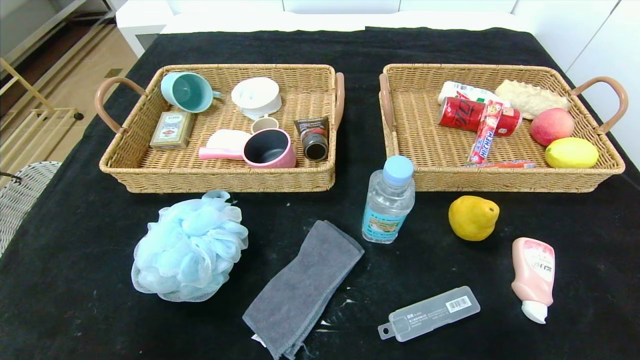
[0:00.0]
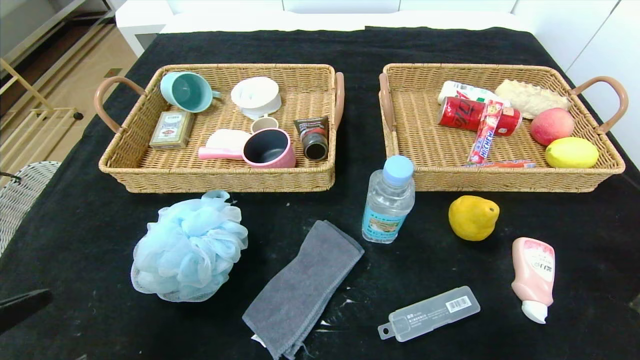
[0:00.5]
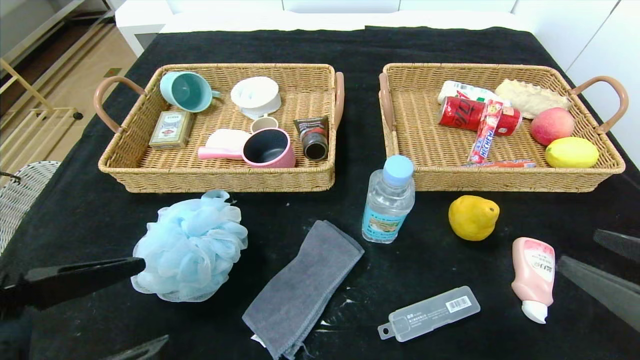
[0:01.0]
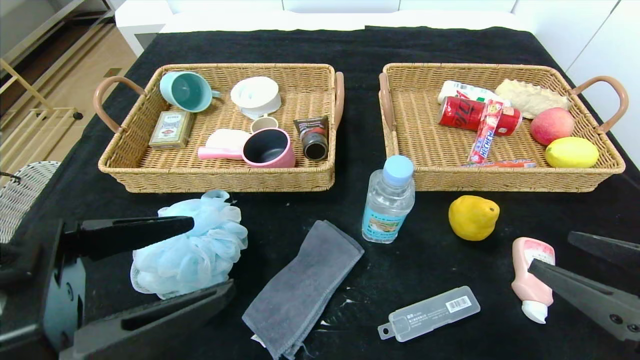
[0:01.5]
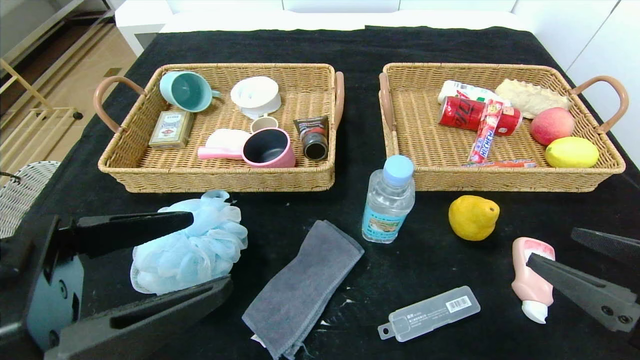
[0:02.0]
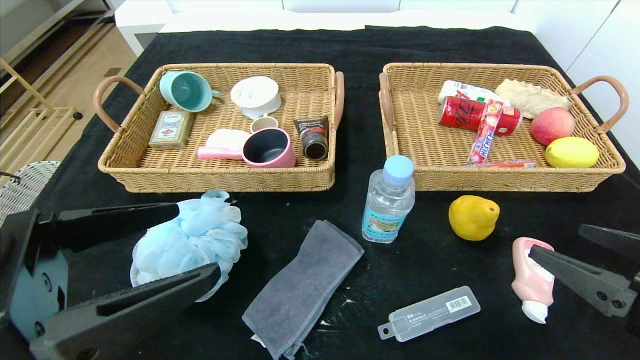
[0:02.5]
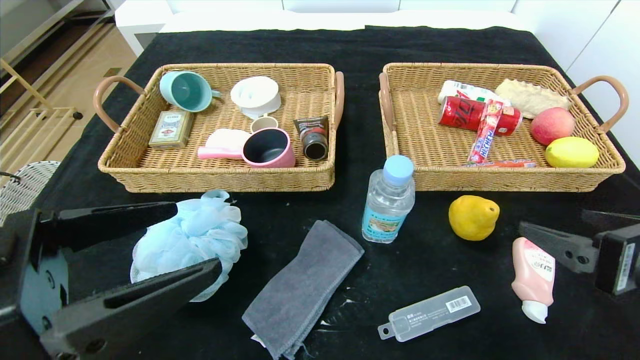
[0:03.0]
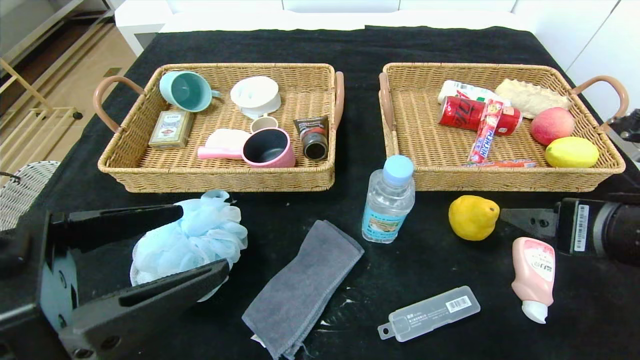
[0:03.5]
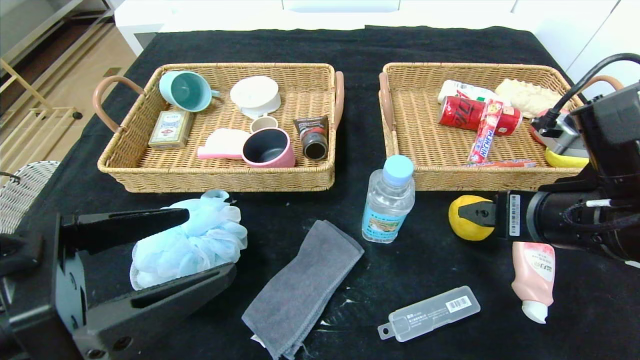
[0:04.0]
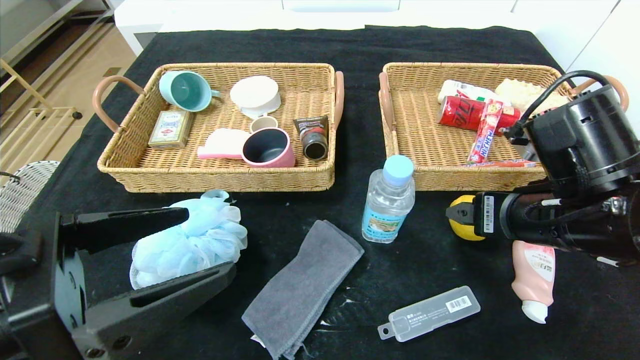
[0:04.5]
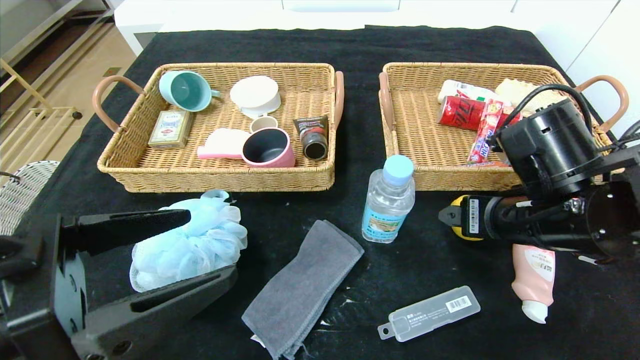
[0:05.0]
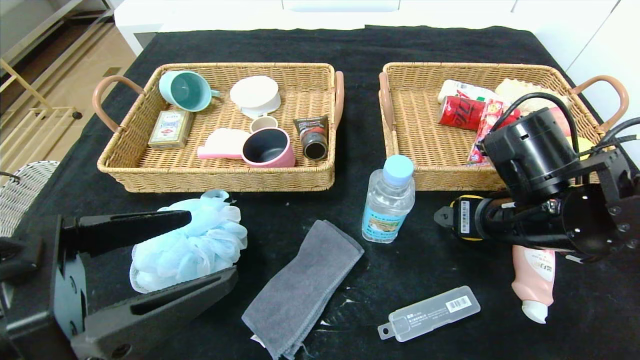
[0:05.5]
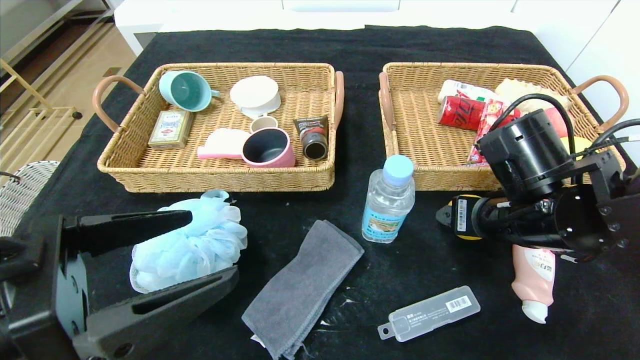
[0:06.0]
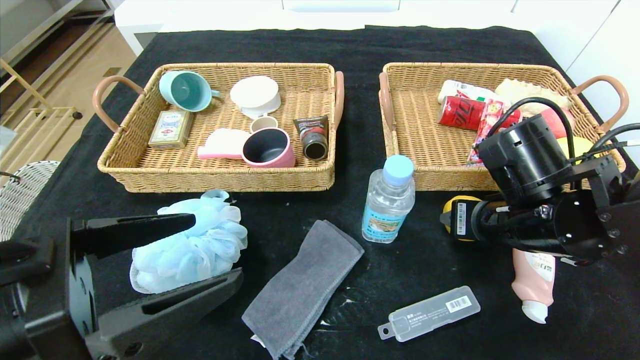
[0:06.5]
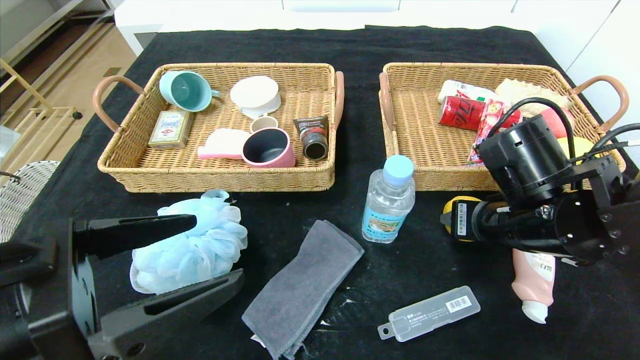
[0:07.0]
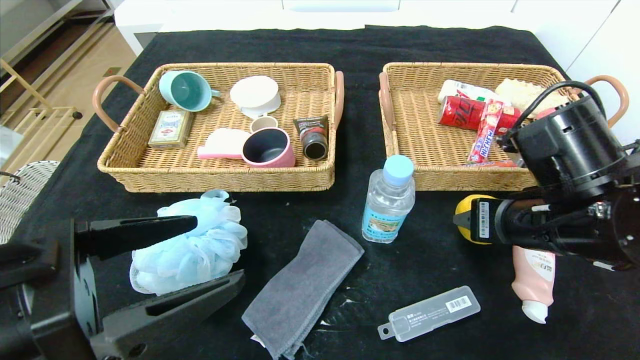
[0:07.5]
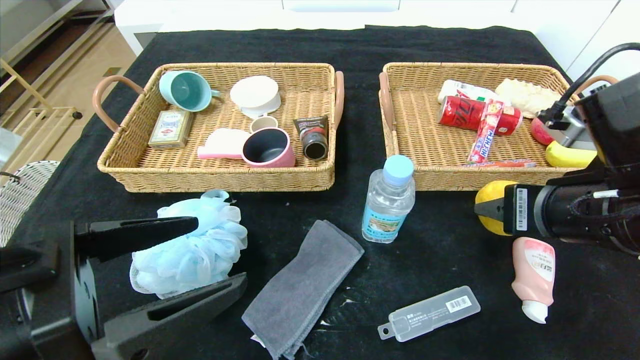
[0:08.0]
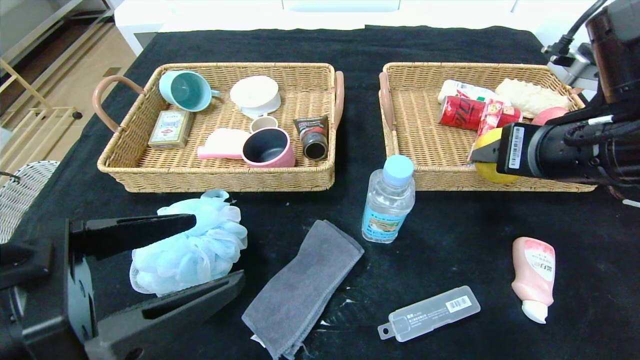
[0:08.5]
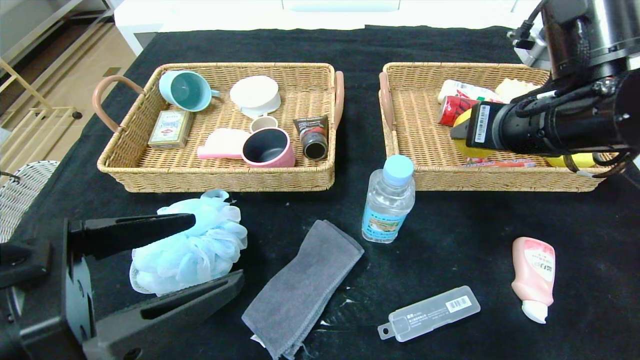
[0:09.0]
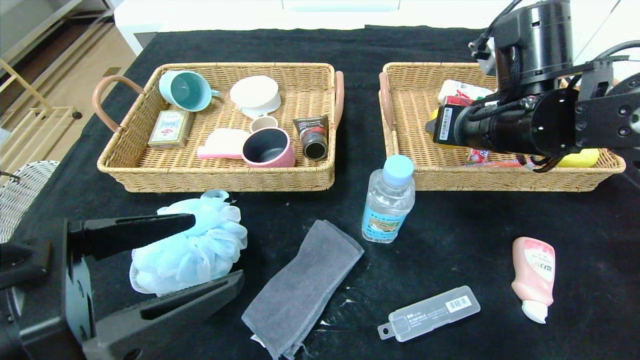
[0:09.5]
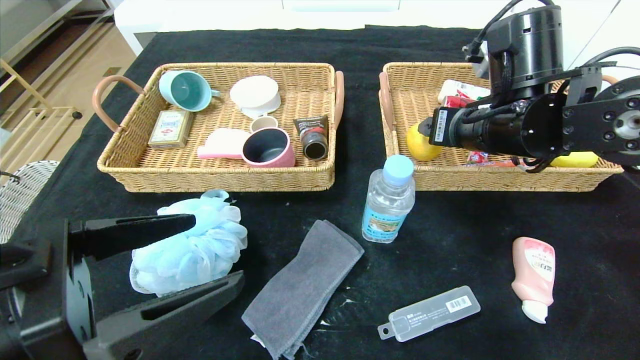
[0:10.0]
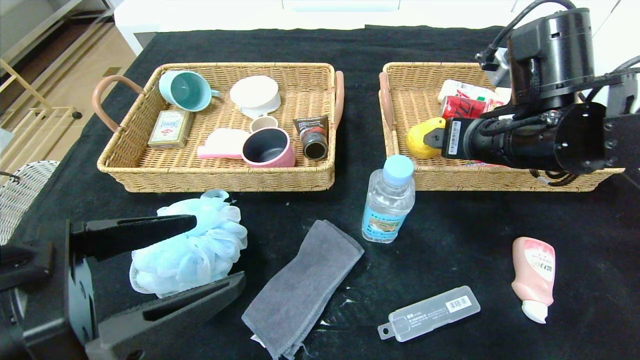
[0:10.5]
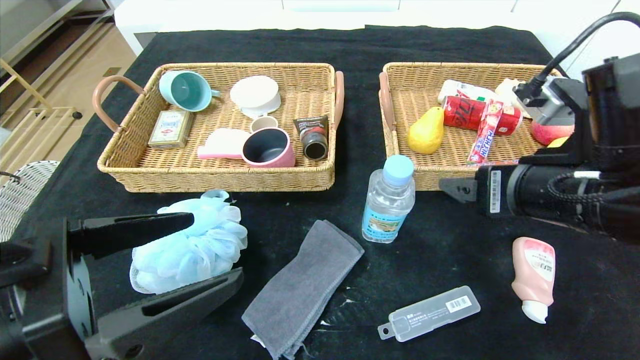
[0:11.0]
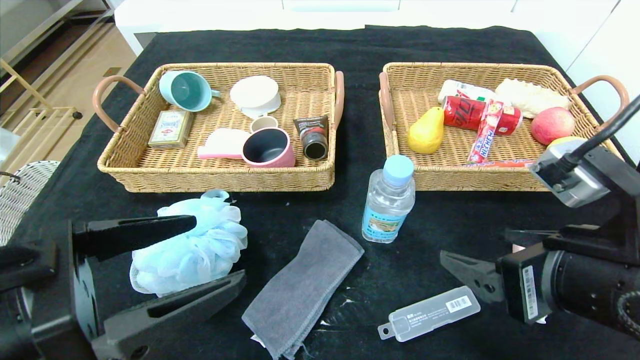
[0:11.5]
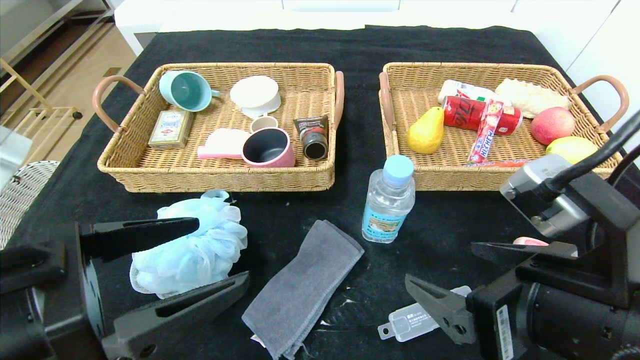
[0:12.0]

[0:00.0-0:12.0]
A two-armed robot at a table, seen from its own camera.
Step, 0:00.0 to 0:10.0: Grasp the pear and put it in the right basket.
0:00.0 to 0:02.0: The right gripper shifts roughly 15 cm forward, upward and to the left; the left gripper shifts some 15 cm forward, upward and to the right.
0:02.0 to 0:04.0: The right gripper travels forward and to the left by roughly 10 cm.
0:04.0 to 0:06.0: The right gripper moves forward, approximately 5 cm, and closes up.
0:06.0 to 0:08.0: The right gripper shifts roughly 10 cm backward and upward.
0:08.0 to 0:10.0: The right gripper is displaced forward by approximately 10 cm, and opens.
0:10.0 to 0:12.0: The right gripper is displaced backward by some 20 cm.

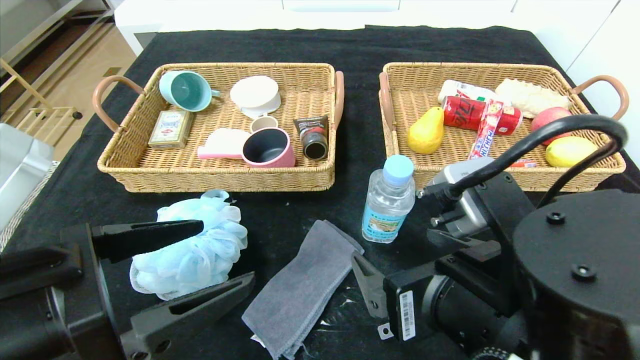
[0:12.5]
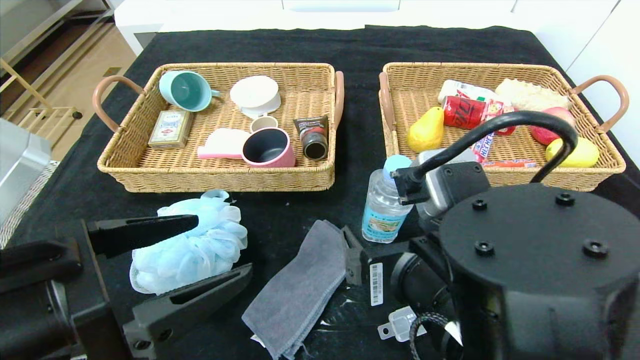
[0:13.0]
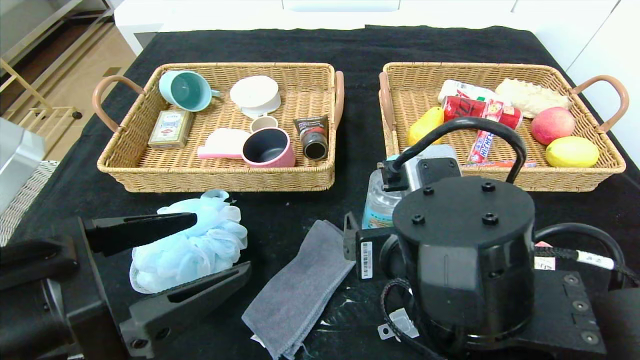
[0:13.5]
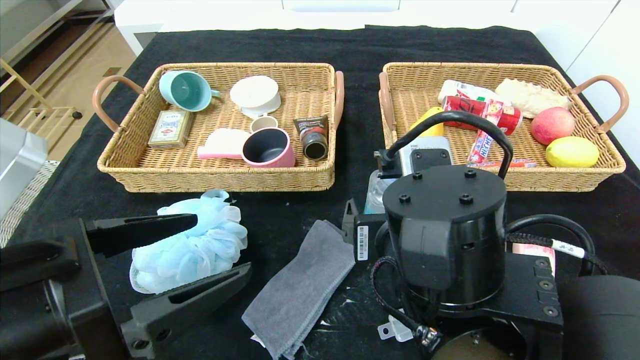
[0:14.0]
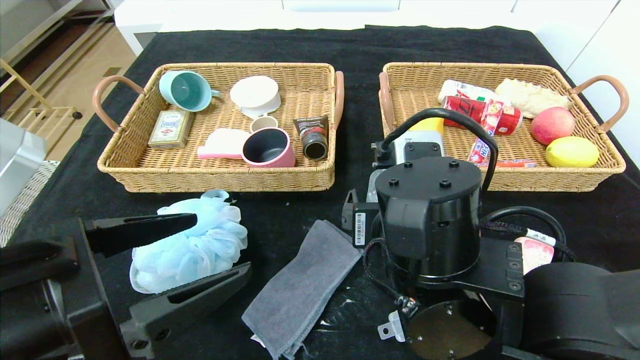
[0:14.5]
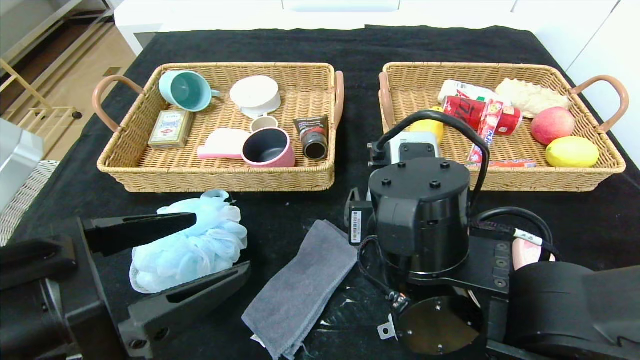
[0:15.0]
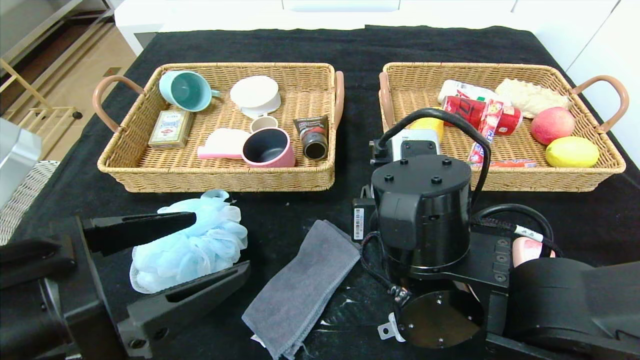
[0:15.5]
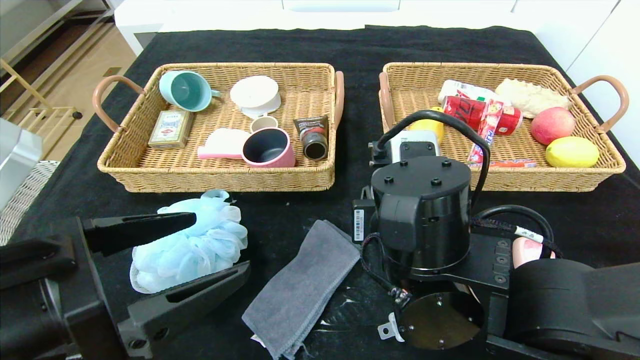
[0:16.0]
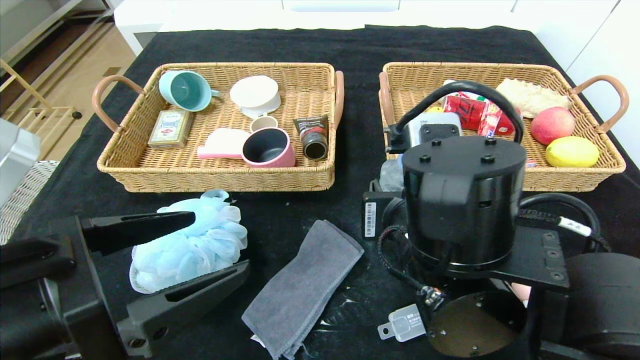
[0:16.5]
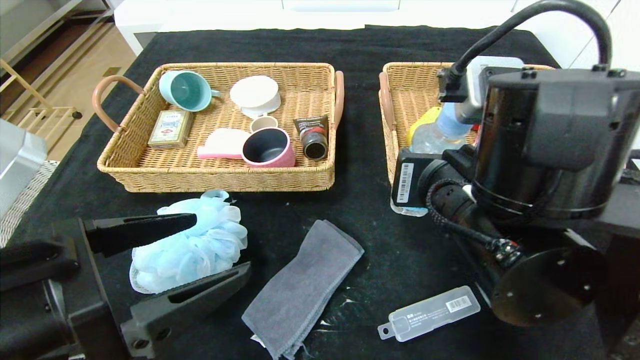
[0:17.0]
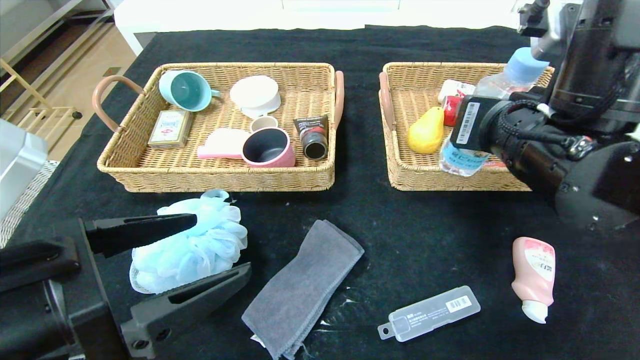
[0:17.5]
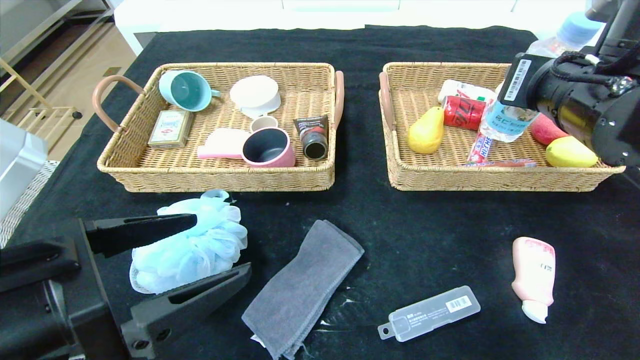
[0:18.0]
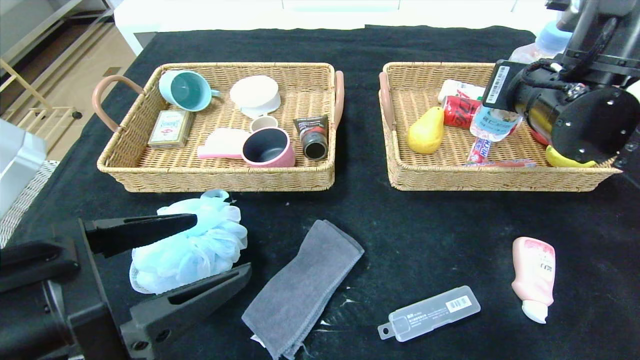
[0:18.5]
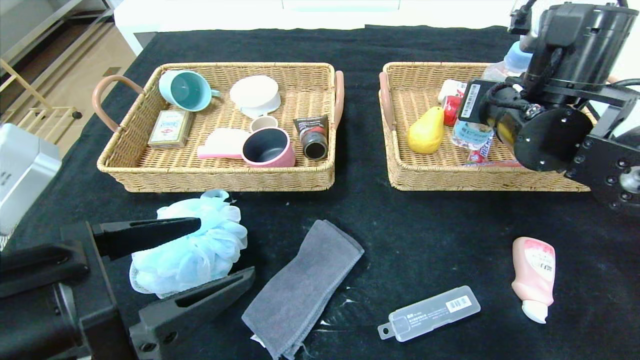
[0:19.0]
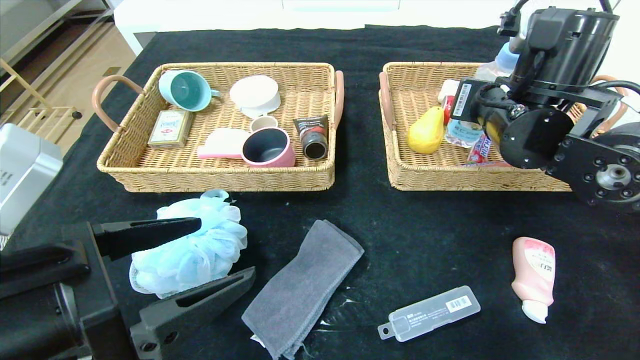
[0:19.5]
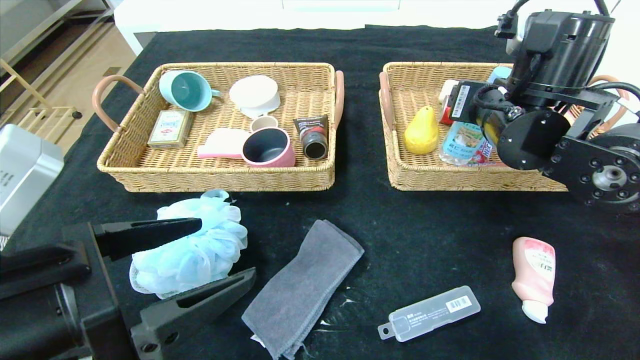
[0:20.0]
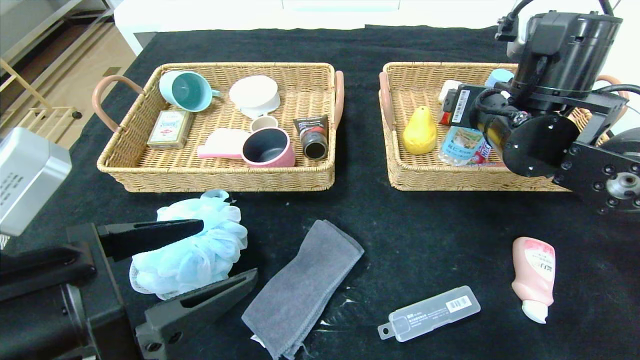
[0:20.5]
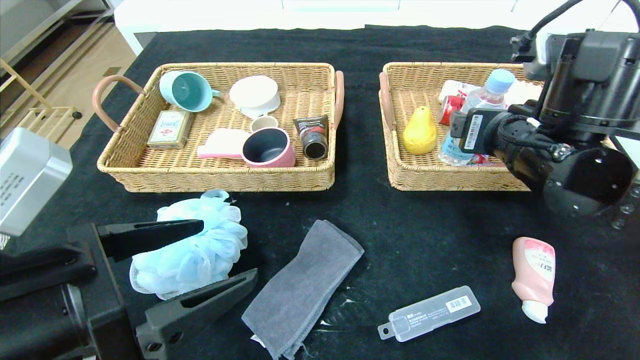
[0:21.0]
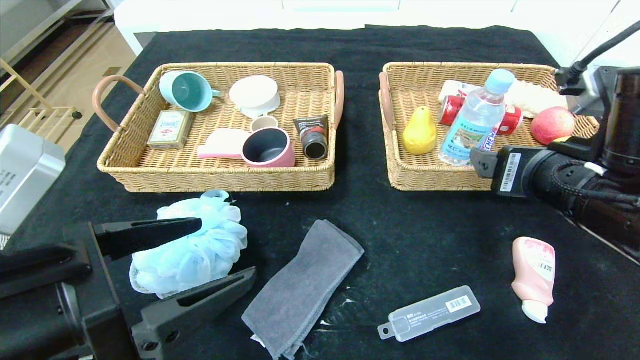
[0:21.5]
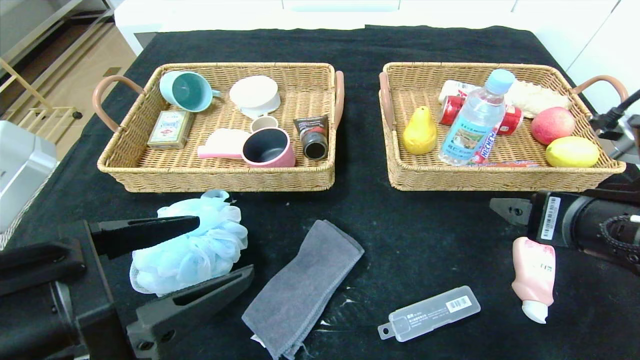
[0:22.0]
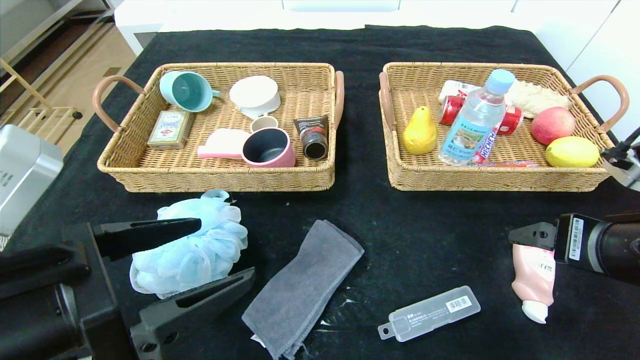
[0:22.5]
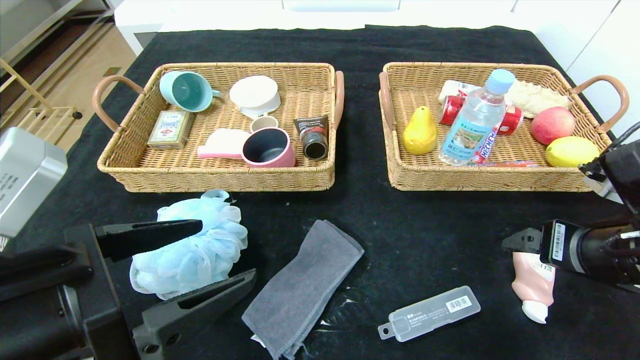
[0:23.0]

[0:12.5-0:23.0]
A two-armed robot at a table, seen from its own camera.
Step, 0:12.5 to 0:20.0: Grasp the soda water and put it in the right basket.
0:12.5 to 0:14.5: The right gripper moves forward, some 10 cm.
0:14.5 to 0:16.5: The right gripper closes.
0:16.5 to 0:19.0: The right gripper moves to the right, forward and upward, some 20 cm.
0:19.0 to 0:21.0: The right gripper shifts by roughly 5 cm, and opens.
0:21.0 to 0:23.0: The right gripper heads to the right, downward and backward, covering approximately 10 cm.
